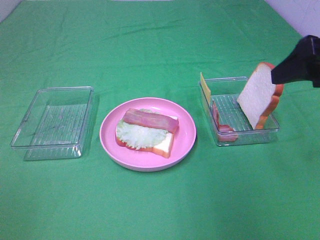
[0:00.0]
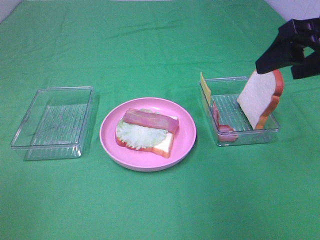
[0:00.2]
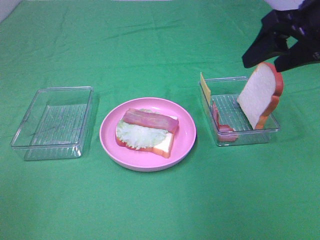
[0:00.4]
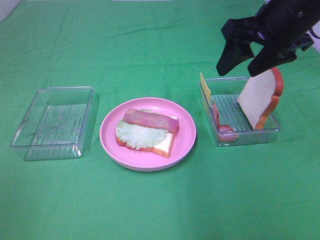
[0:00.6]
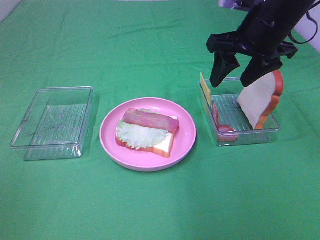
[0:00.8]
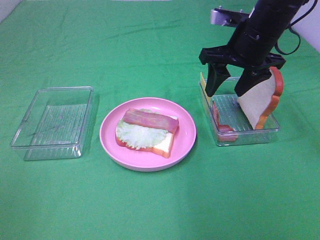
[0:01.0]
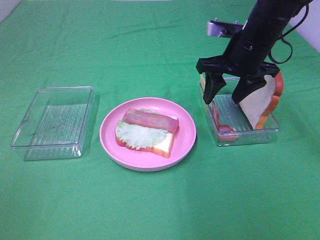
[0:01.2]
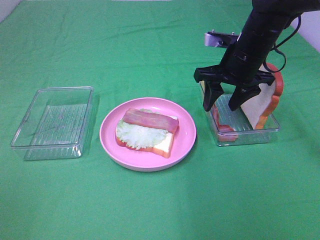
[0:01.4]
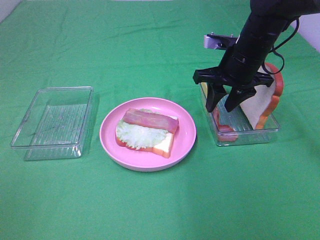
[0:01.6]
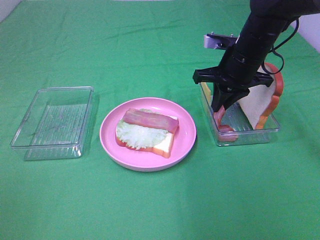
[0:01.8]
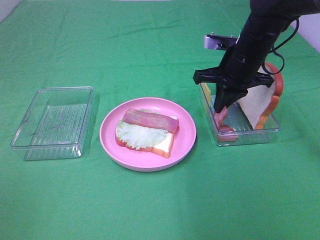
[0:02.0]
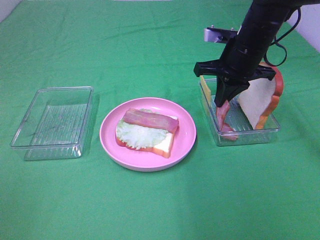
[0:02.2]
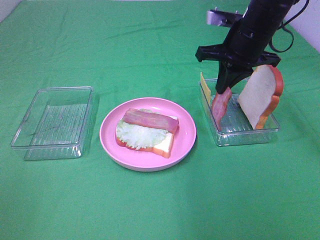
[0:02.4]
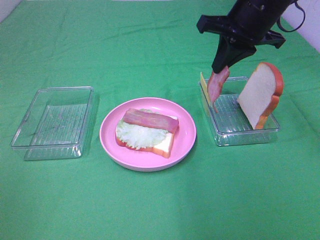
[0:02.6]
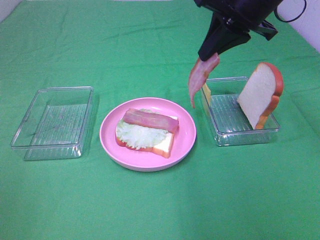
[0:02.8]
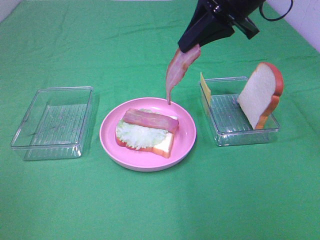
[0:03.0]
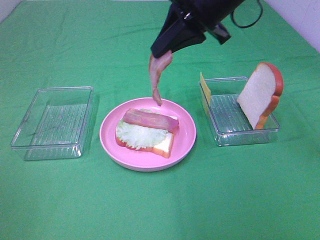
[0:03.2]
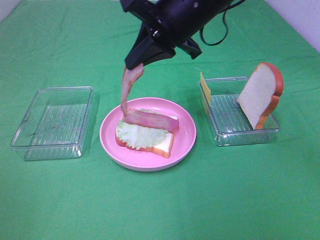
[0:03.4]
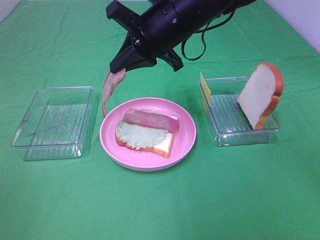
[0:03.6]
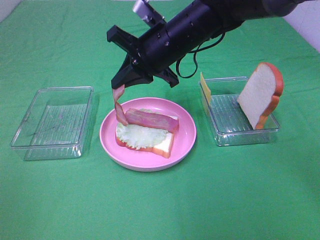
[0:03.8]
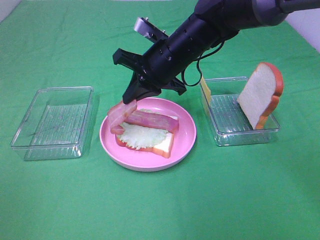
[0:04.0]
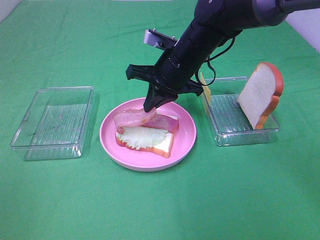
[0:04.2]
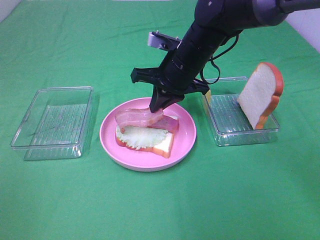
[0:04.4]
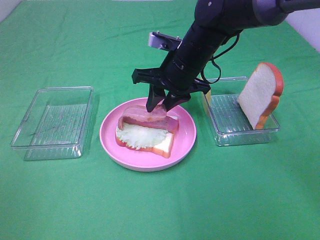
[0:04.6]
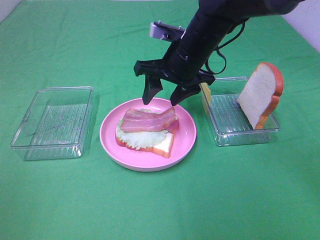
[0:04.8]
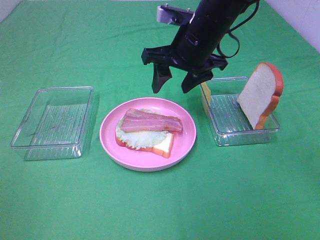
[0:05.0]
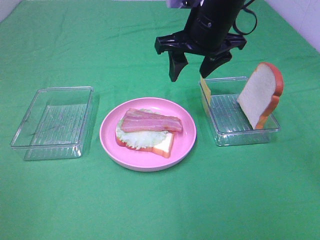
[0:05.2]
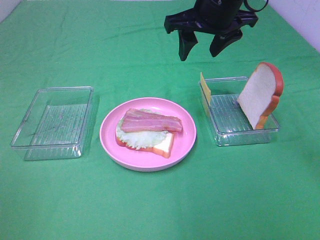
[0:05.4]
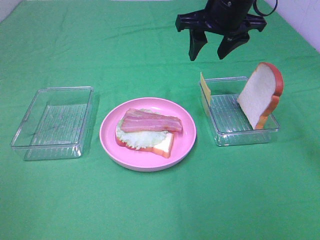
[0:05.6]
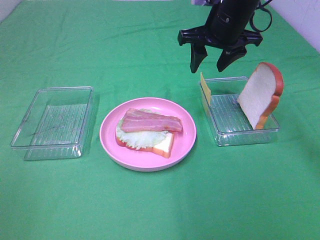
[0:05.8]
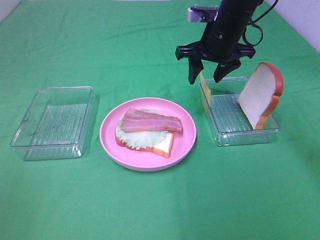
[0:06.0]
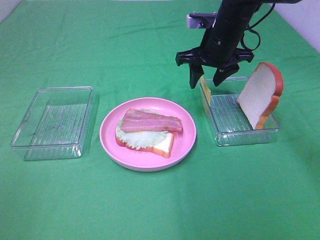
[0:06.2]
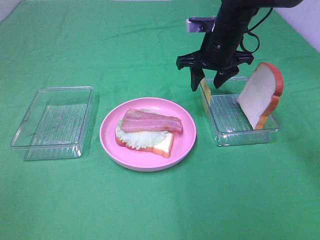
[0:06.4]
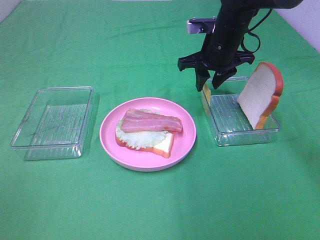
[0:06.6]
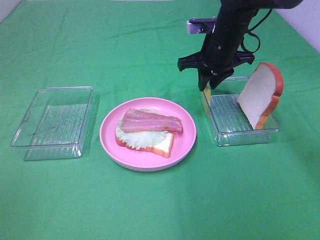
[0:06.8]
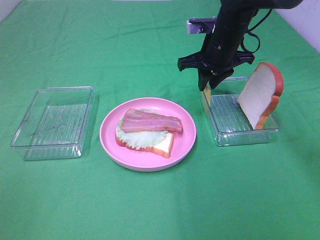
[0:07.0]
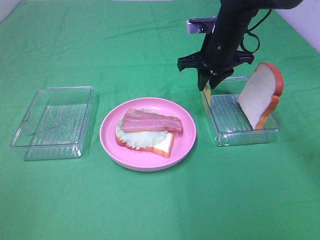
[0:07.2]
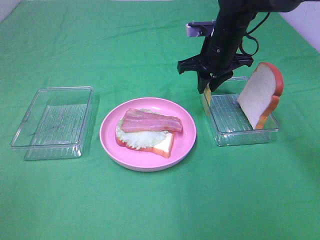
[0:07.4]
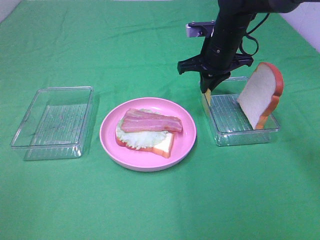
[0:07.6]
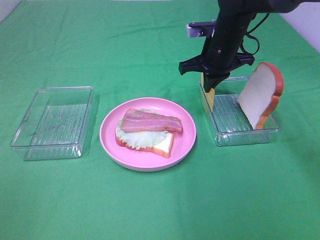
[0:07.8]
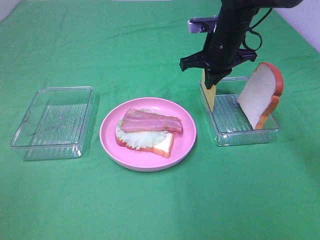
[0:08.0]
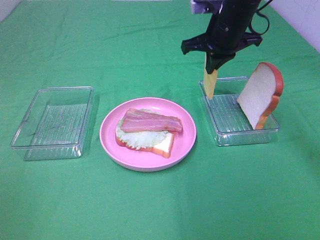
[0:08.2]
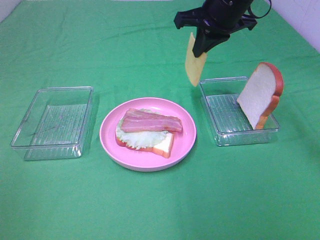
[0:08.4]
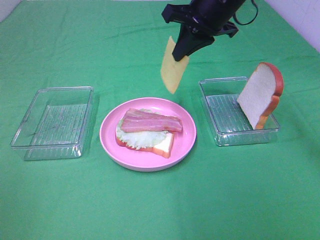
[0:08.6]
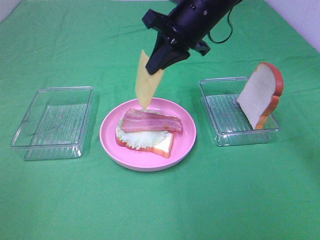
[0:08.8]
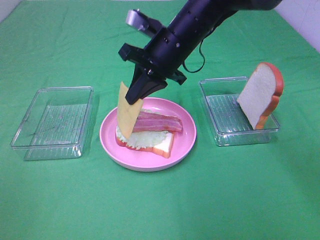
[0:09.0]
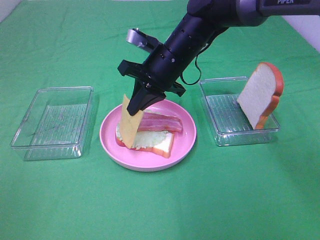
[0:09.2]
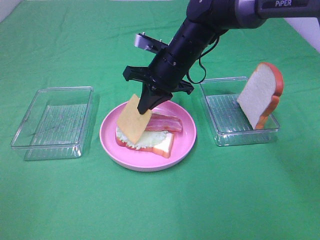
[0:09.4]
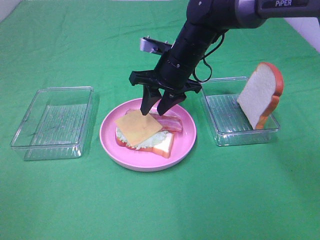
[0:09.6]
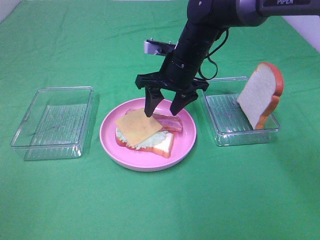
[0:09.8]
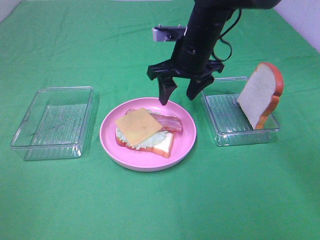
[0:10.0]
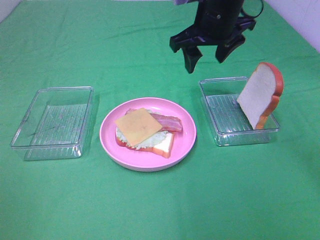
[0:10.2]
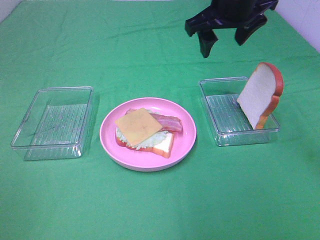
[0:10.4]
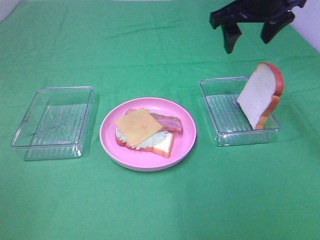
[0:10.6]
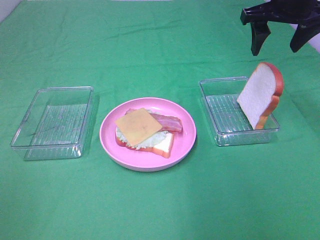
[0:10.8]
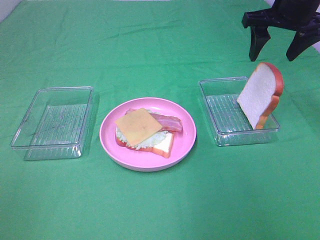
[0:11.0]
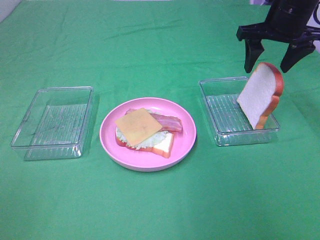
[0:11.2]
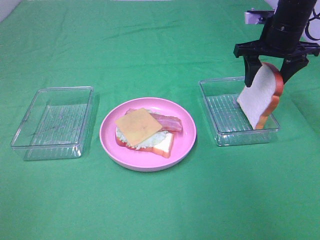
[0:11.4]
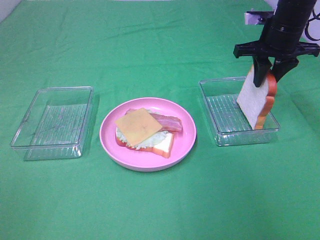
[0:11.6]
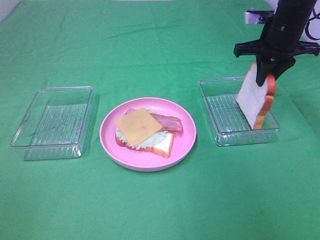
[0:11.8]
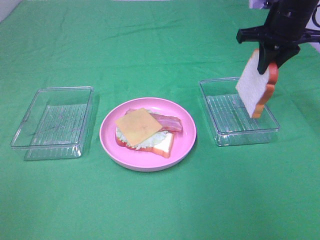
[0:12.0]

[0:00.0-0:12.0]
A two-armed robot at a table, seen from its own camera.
Task of the whole recording: Make sandwiches.
Step, 2.0 to 5.2 s: Right hand:place bacon on bacon.
Step, 5.4 to 7.8 s: Right hand:grab the cheese slice.
Step, 8.0 to 9.8 s: Right hand:place the cheese slice on top of the bacon.
Step, 10.0 to 11.6 s: Right hand:grab the bread slice.
0.0 to 1.6 s: The right gripper heads forward, downward and to the left, covering about 20 cm, and closes its fingers.
1.6 to 3.0 s: The right gripper is displaced upward by about 15 cm, and closes.
3.0 to 4.4 s: The right gripper shifts some 15 cm downward and to the left.
4.4 to 6.0 s: The right gripper shifts about 10 cm to the right and forward, moves some 10 cm upward and comes back, and opens its fingers.
6.0 to 7.6 s: The right gripper closes up.
7.6 to 9.0 s: The right gripper moves to the left and backward, some 10 cm, and goes upward and returns, about 10 cm each way.
9.0 to 10.4 s: The right gripper travels to the right and upward by about 15 cm, and opens.
10.4 to 12.0 s: The right gripper shifts about 10 cm to the right, and closes.

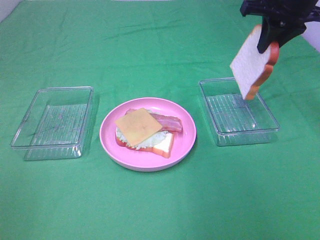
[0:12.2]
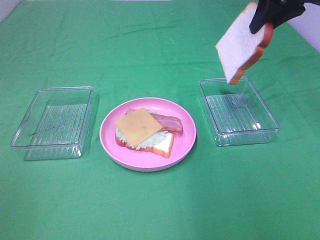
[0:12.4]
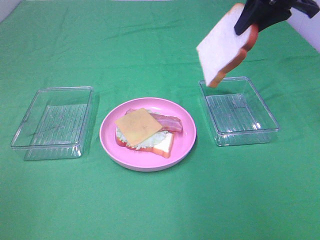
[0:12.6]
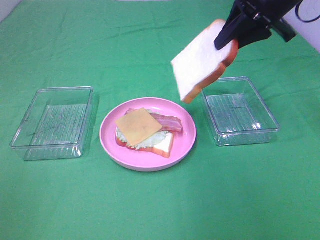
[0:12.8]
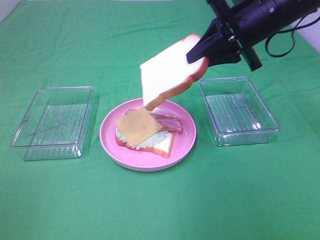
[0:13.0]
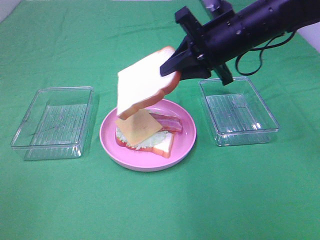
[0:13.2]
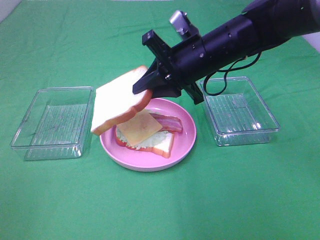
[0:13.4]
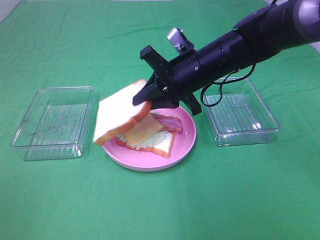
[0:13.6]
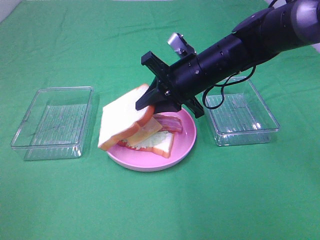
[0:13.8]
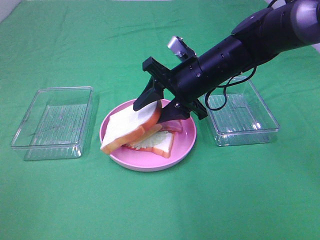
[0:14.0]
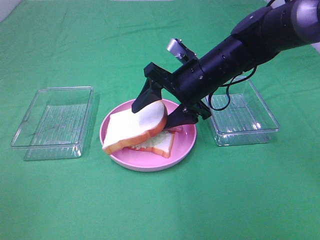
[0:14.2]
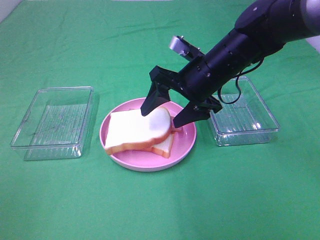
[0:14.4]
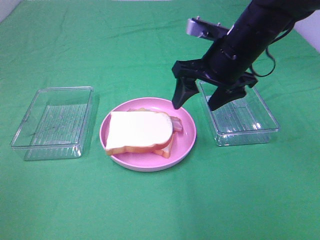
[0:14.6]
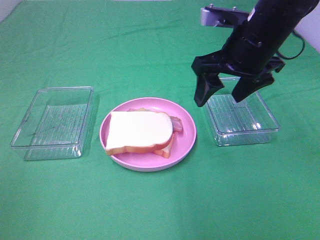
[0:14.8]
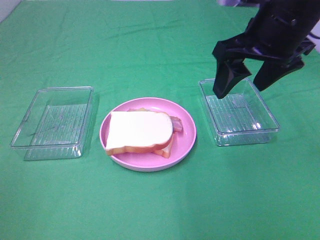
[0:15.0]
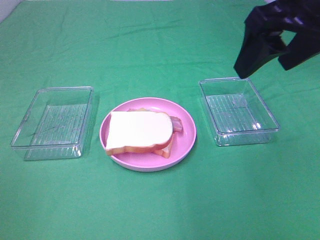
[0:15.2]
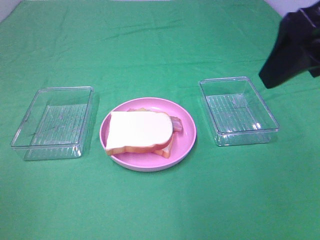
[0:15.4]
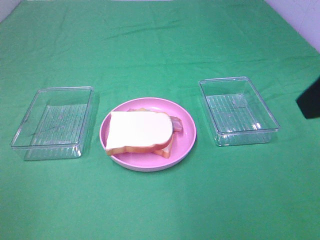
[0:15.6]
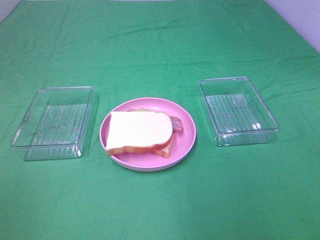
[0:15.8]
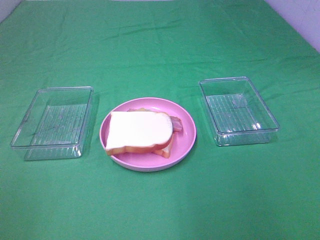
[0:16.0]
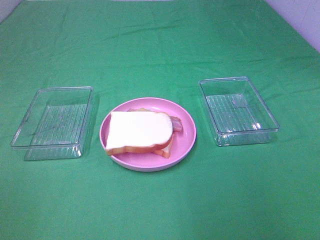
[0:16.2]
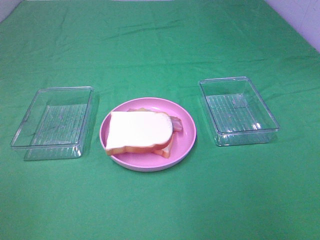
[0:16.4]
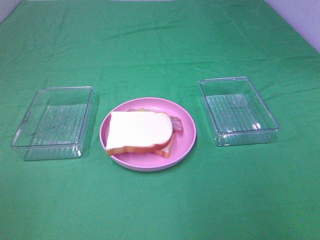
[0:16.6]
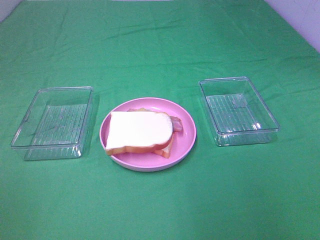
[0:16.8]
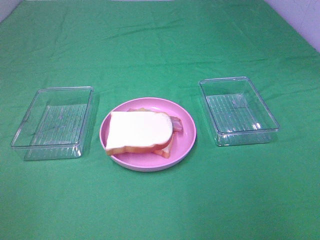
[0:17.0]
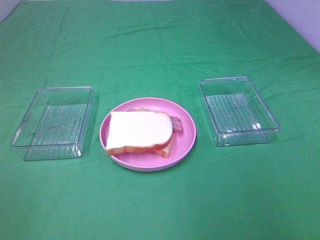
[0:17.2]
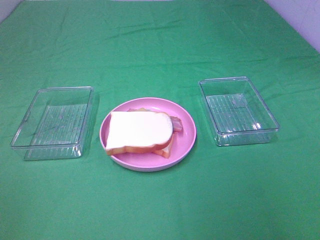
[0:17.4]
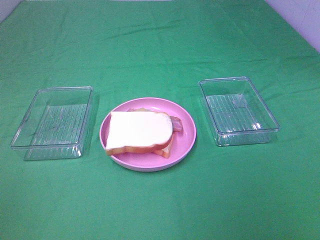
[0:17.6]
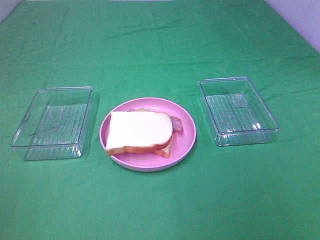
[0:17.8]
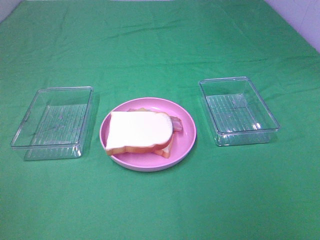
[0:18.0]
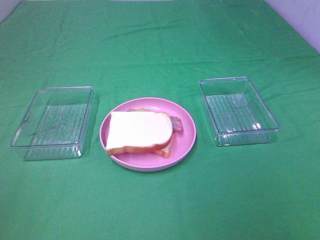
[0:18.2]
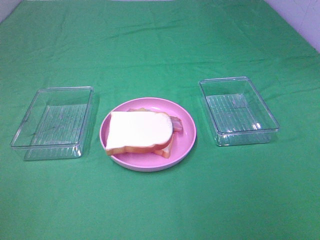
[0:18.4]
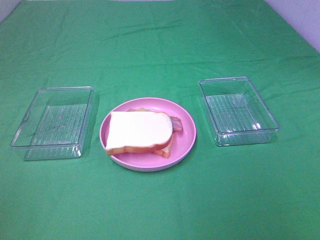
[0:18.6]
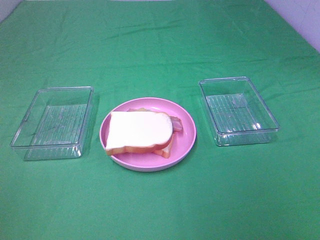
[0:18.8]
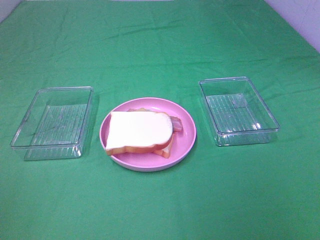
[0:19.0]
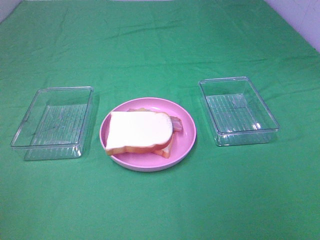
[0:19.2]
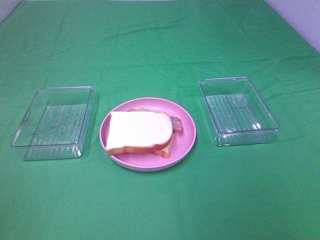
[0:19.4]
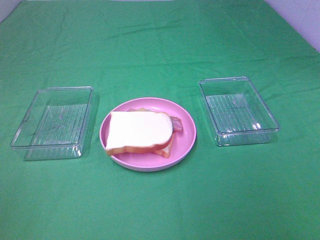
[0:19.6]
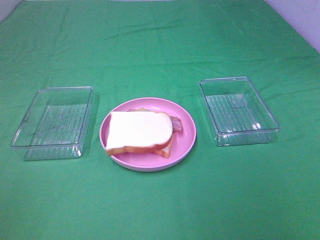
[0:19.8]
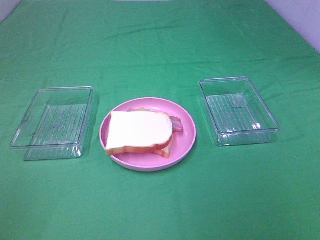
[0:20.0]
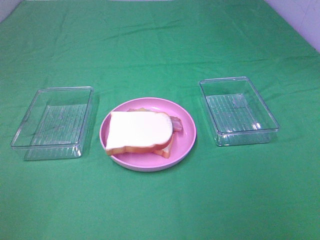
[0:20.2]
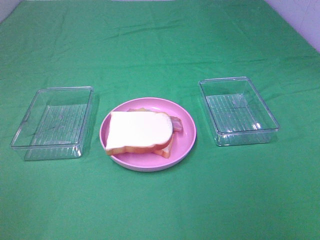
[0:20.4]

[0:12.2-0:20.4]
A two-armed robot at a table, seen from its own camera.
Task of the whole recording: Make sandwiches.
Step, 12.2 to 14.6 s: Right hand:place the bread slice on the cheese slice.
12.2 to 13.8 s: The right gripper travels downward and to the left by roughly 20 cm.
13.8 to 15.4 s: The right gripper is displaced upward, backward and to the right by some 25 cm, and opens its fingers.
15.4 to 17.2 s: The right gripper goes roughly 20 cm backward, to the right and downward.

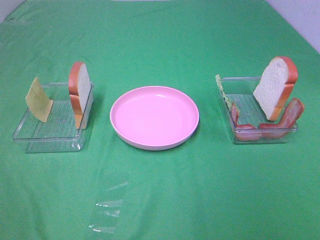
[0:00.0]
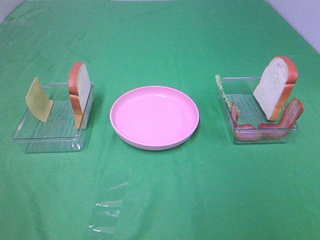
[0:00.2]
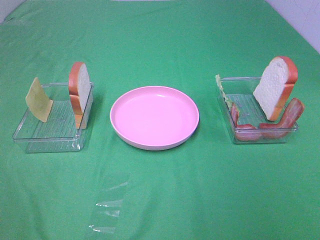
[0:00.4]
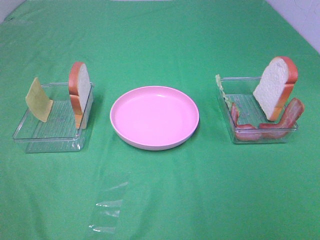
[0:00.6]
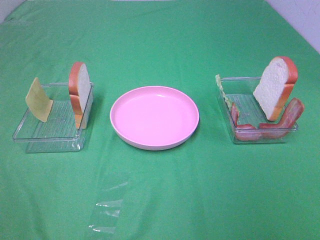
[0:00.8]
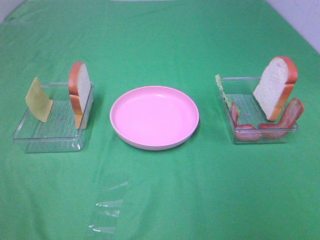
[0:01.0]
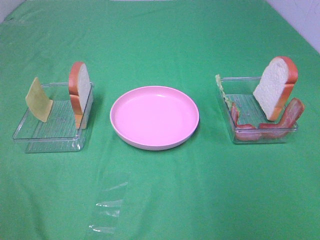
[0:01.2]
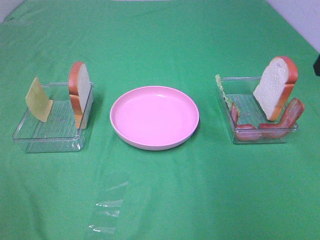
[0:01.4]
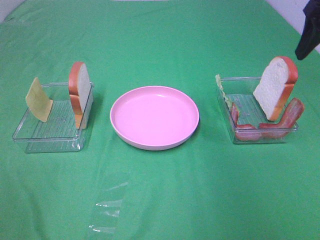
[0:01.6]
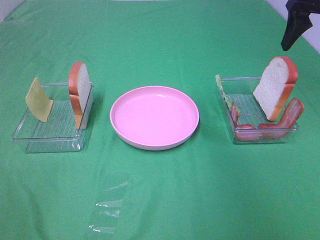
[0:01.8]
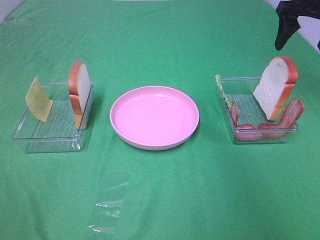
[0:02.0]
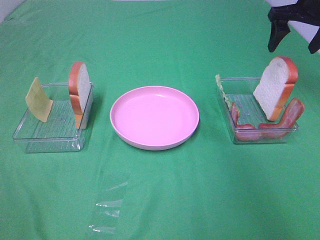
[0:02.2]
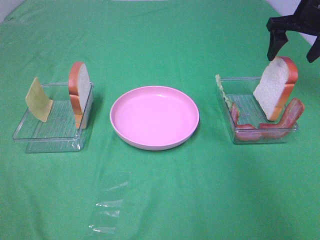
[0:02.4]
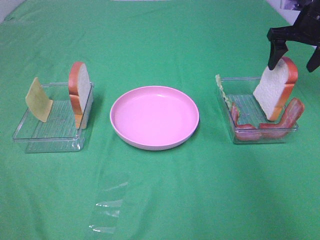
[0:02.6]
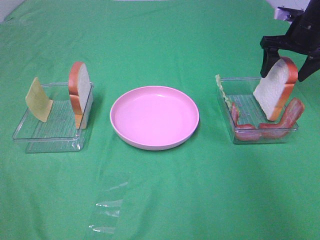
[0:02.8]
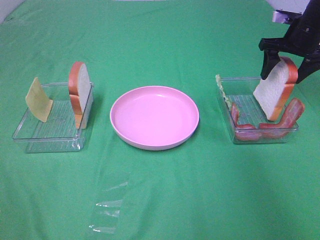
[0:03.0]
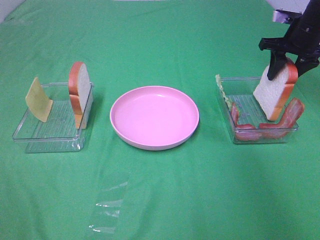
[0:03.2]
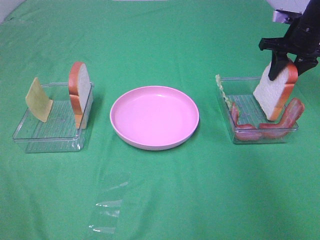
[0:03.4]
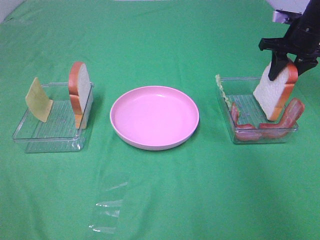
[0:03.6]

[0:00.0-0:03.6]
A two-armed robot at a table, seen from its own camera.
Task of the whole recording: Make sandwiches.
0.0 to 1.8 s: The right gripper shifts about 40 cm forward.
1.8 to 3.6 s: The right gripper goes some 15 cm downward and forward, and closes.
